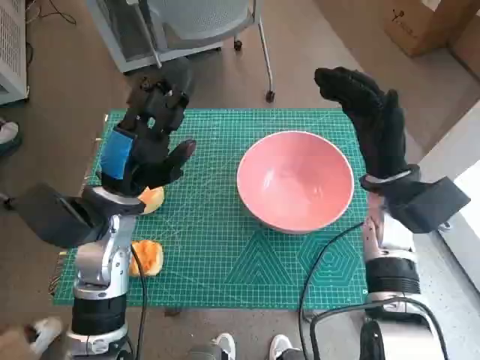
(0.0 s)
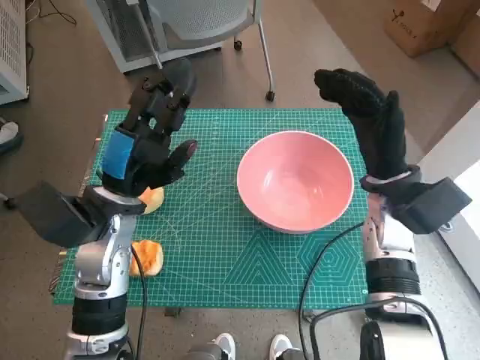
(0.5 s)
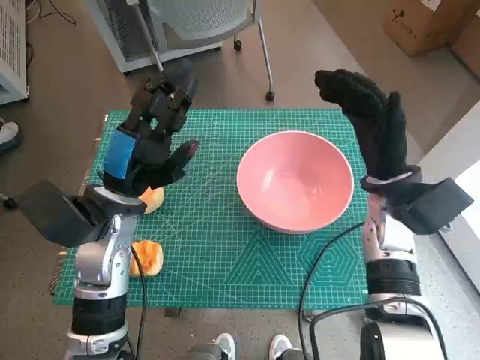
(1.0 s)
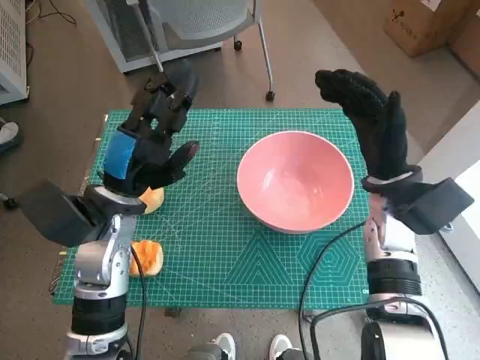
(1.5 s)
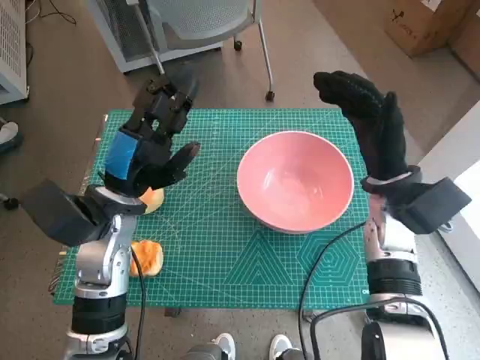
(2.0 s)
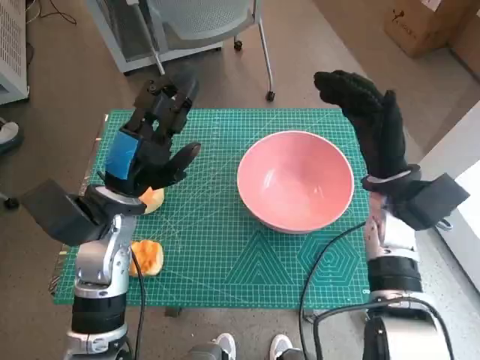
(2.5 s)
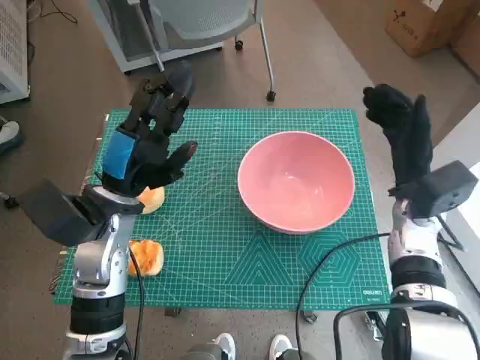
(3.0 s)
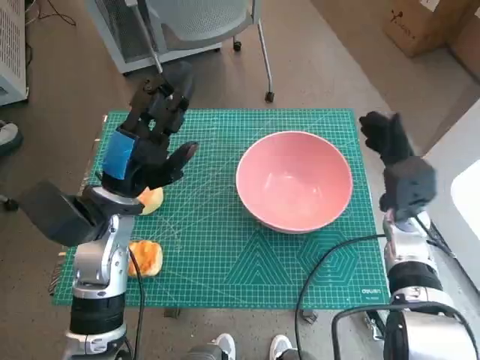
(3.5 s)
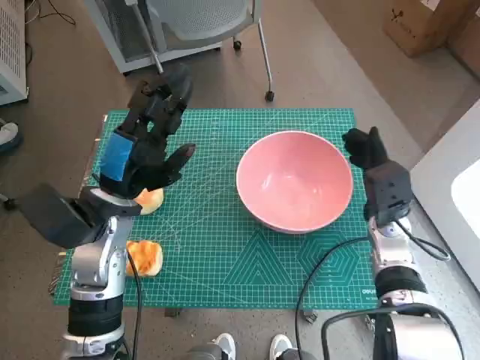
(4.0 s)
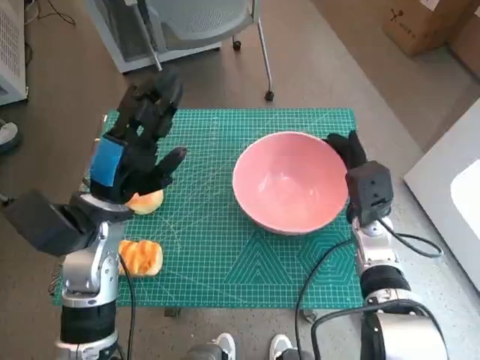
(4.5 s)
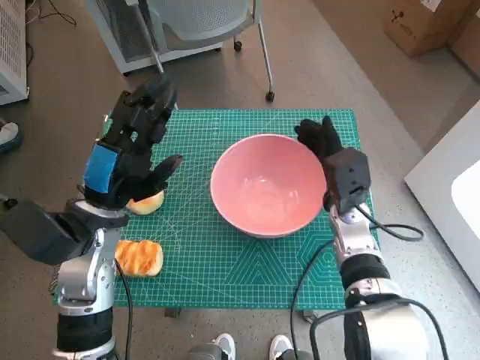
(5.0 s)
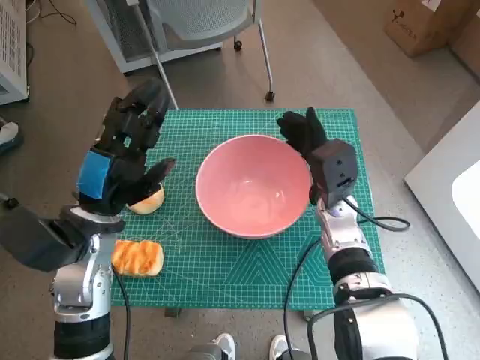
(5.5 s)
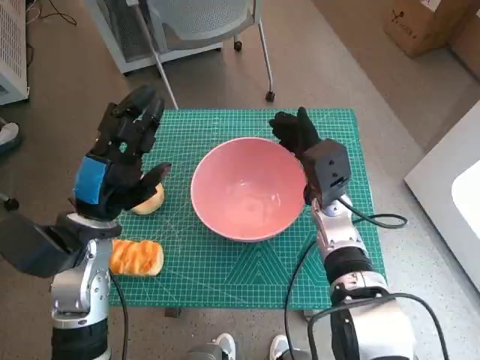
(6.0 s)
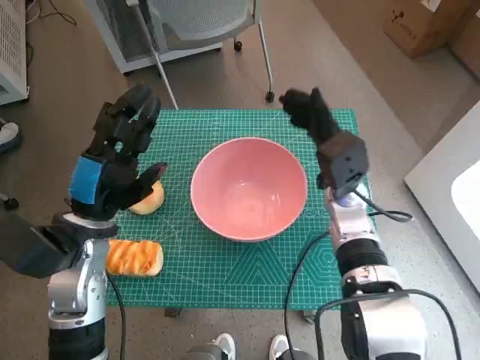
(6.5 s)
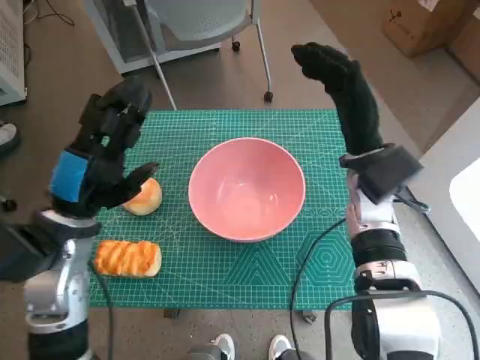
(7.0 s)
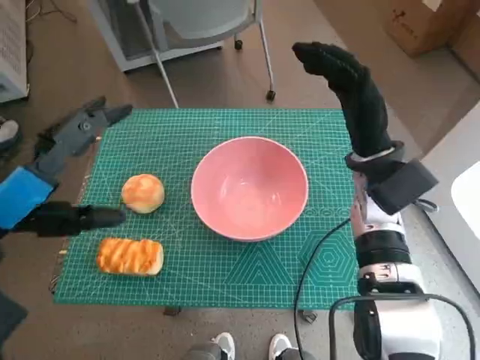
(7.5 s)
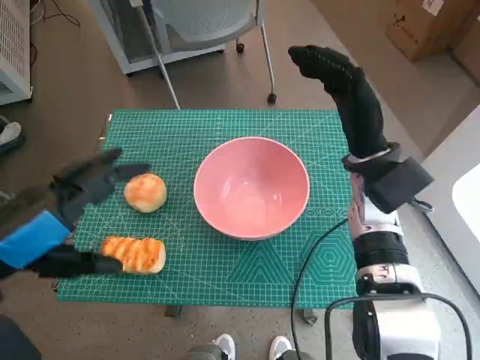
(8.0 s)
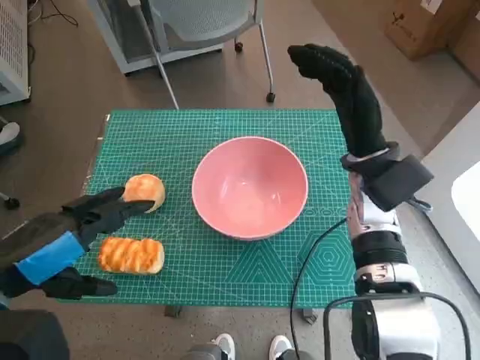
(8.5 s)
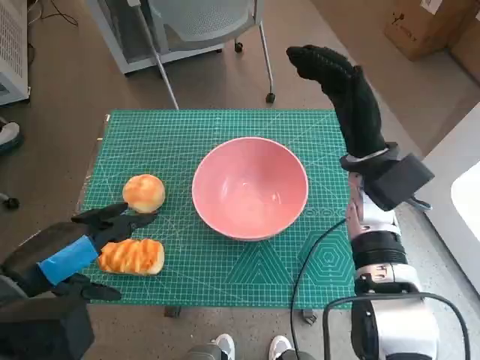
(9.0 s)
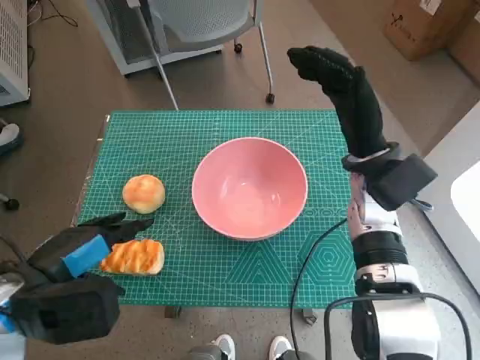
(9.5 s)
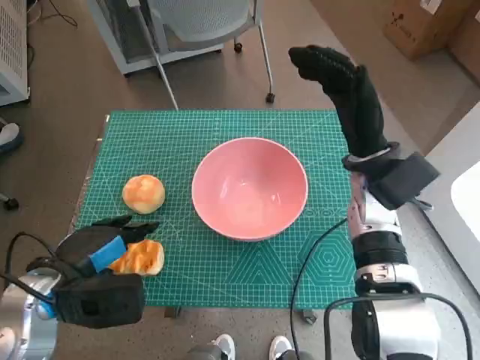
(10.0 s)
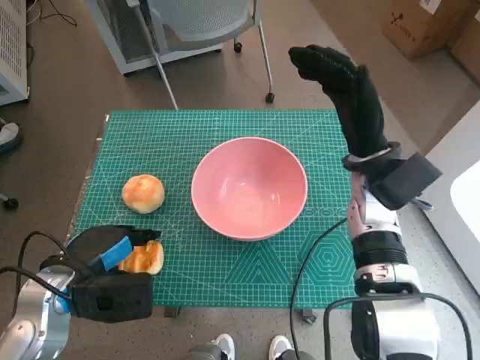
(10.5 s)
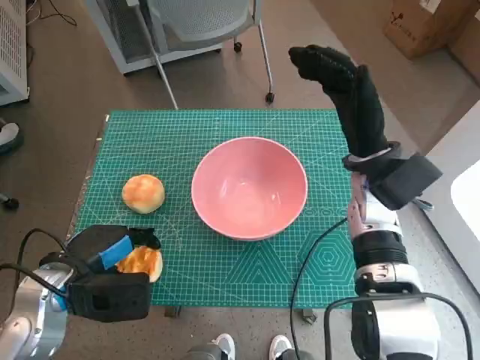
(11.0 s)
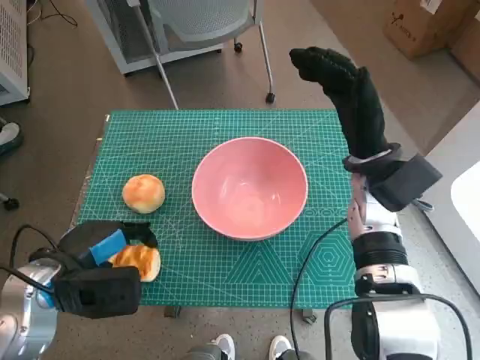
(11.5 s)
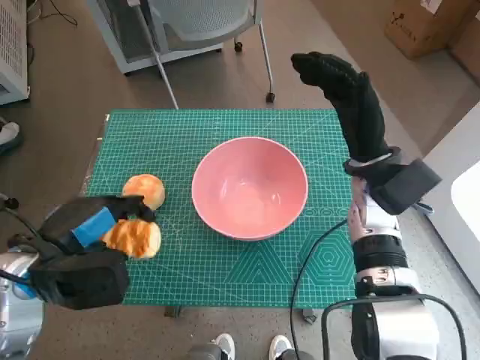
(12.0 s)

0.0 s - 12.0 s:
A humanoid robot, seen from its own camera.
Step, 0.0 s - 6.0 s: Move the pink bowl to the center of table with right hand.
Step, 6.5 s - 11.0 s: Grasp the long bread with left hand.
2.0 s - 4.0 s: The right hand heads downward, covering approximately 10 cm.
4.0 s - 6.0 s: The right hand travels to the left by approximately 10 cm.
6.0 s - 8.0 s: The right hand goes roughly 10 cm upward. Meanwhile the left hand is displaced upward and backward by approximately 15 cm.
8.0 s - 10.0 s: The left hand goes roughly 10 cm downward.
10.0 s - 12.0 s: The hands stay close to where they were, moving slightly.

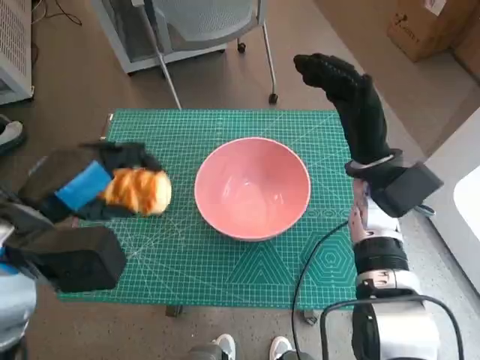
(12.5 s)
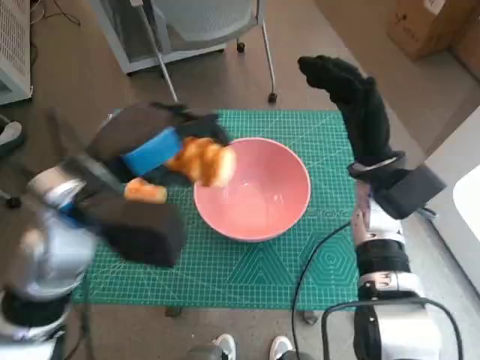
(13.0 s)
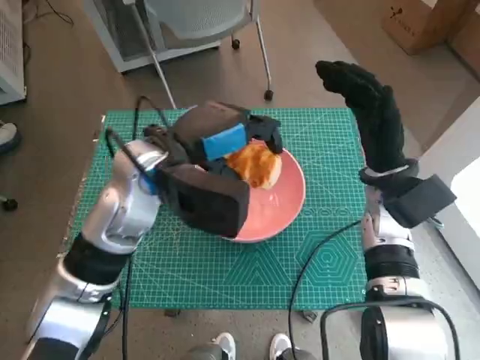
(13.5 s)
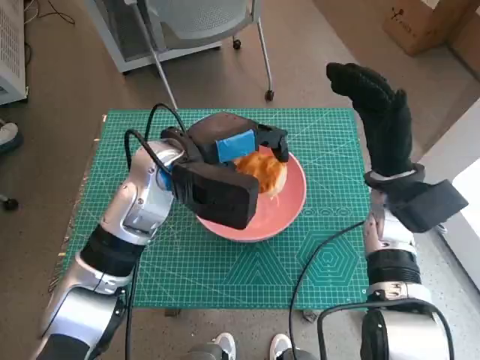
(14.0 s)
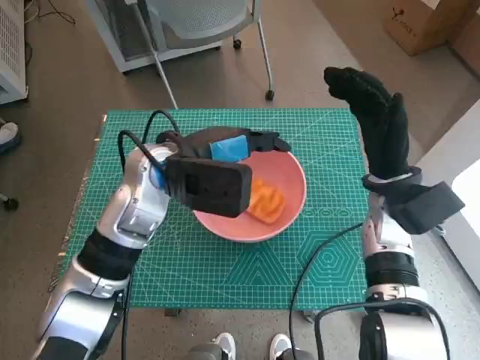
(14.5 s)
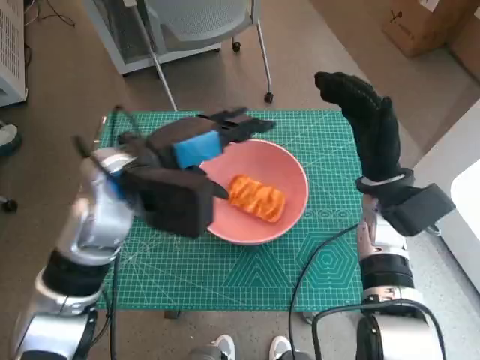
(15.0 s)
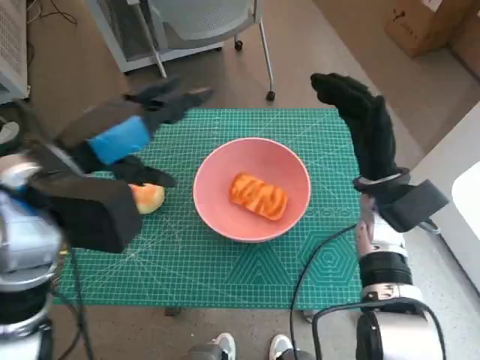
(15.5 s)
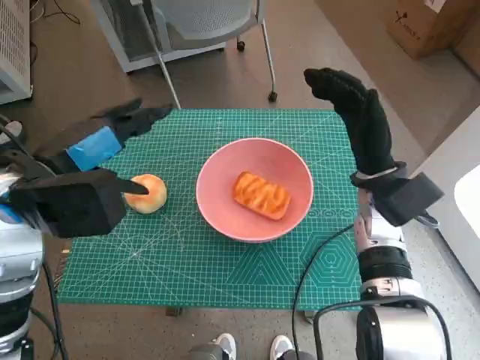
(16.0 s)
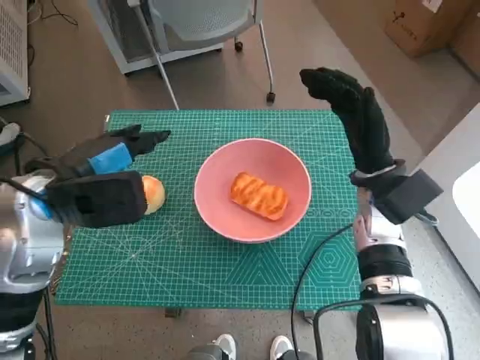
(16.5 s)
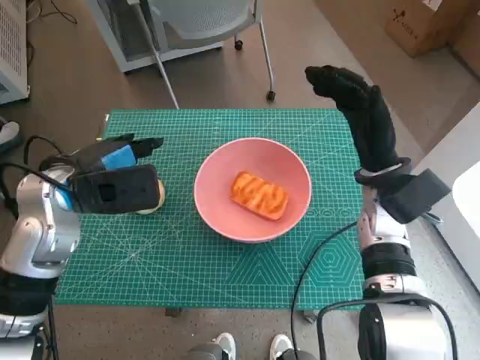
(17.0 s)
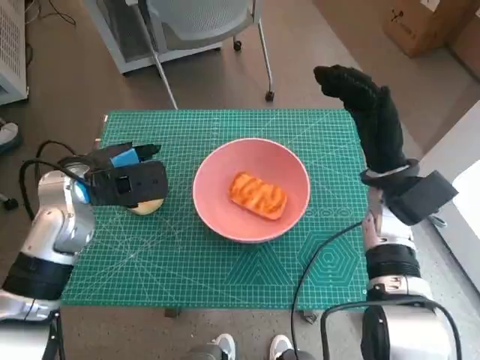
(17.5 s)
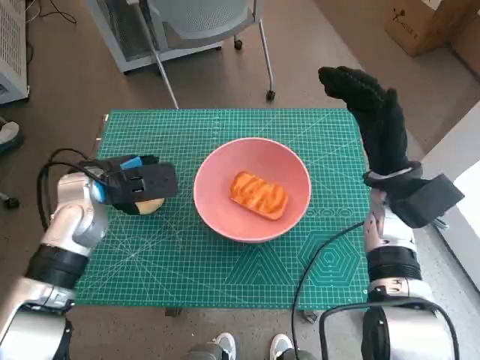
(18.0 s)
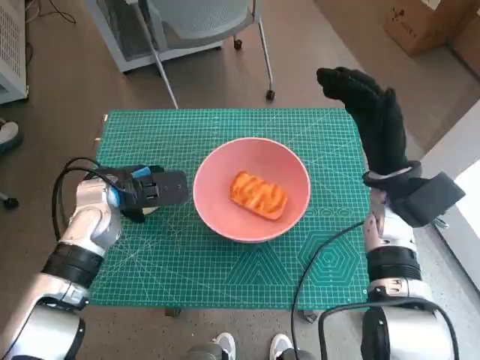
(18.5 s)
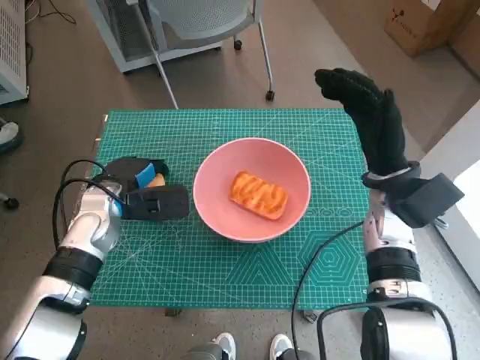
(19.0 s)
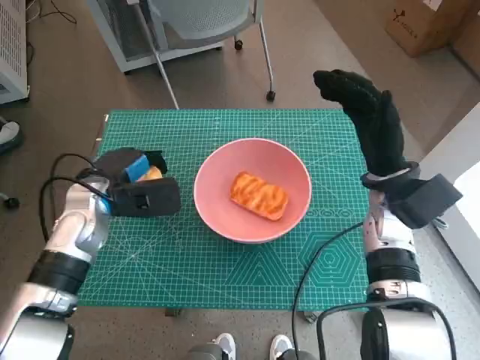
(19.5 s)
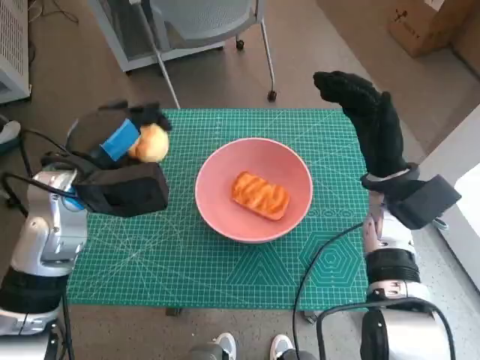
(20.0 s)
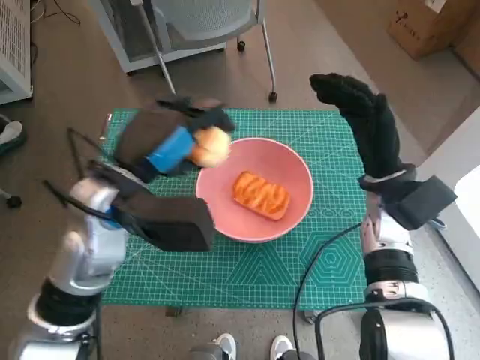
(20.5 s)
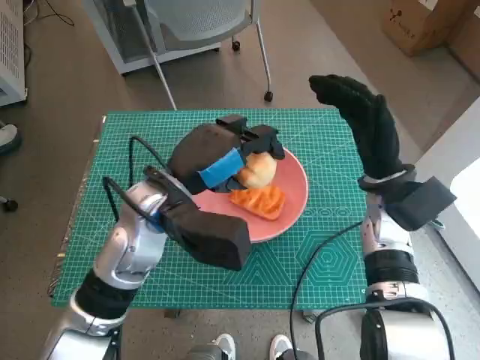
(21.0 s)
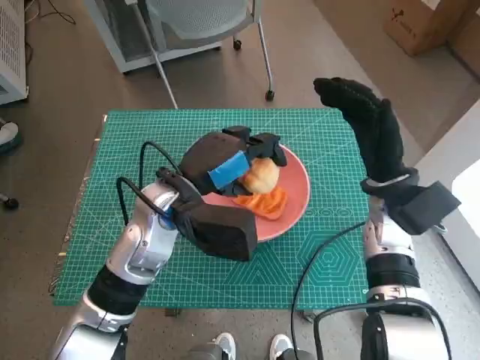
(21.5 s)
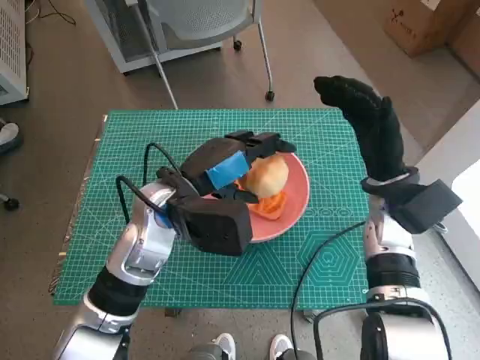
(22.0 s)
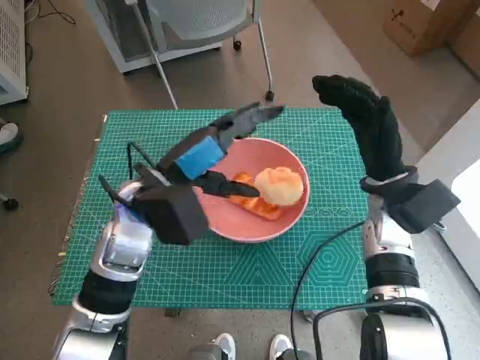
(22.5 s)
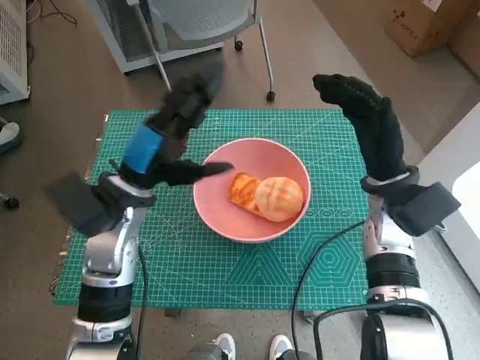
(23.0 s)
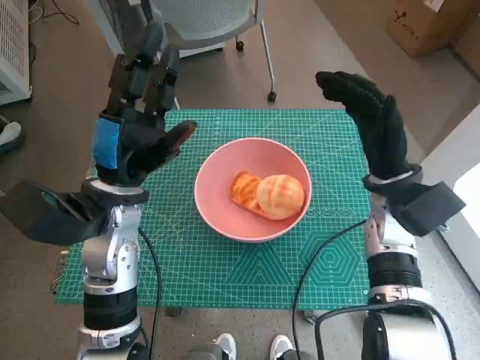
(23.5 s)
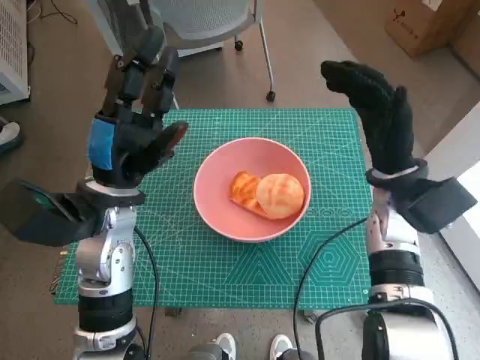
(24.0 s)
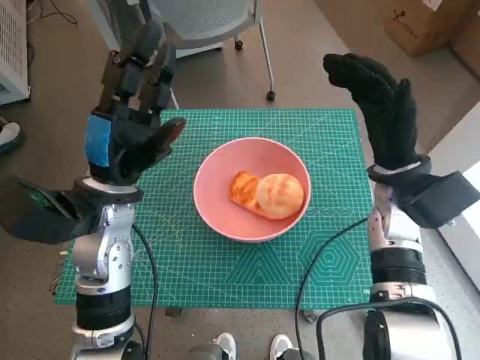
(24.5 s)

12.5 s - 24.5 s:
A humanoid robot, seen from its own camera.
Step, 12.5 s - 14.5 s: Place the long bread in pink bowl with left hand.
Step, 15.0 s - 18.5 s: Grasp the round bread with left hand.
Step, 19.0 s - 22.0 s: Place the round bread in pink bowl with left hand.
12.5 s - 14.5 s: The left hand goes some 15 cm to the right and forward.
14.5 s - 16.5 s: The left hand goes some 15 cm to the left and backward.
16.5 s - 18.5 s: The left hand is displaced downward and forward by some 10 cm.
18.5 s - 20.5 s: The left hand moves upward, backward and to the right, roughly 10 cm.
20.5 s - 22.5 s: The left hand changes place by about 5 cm.

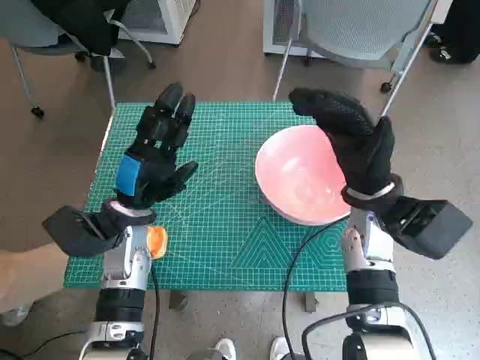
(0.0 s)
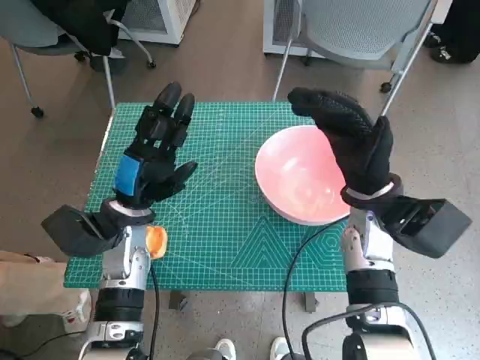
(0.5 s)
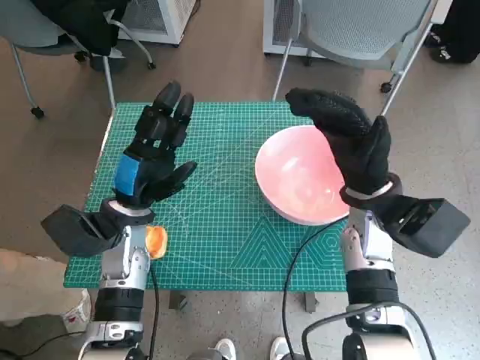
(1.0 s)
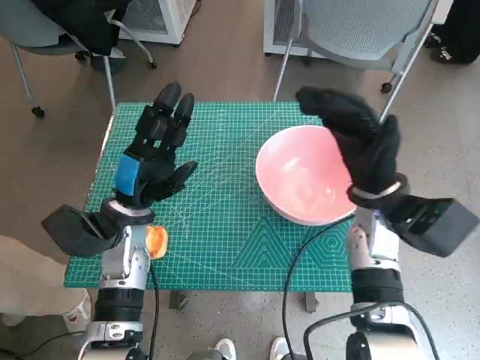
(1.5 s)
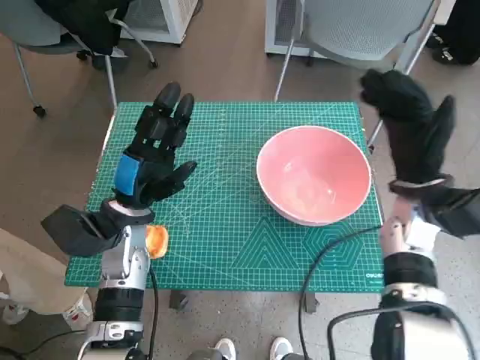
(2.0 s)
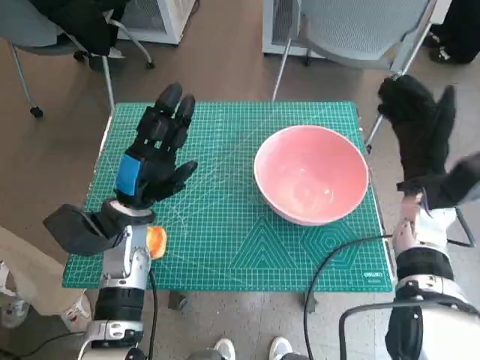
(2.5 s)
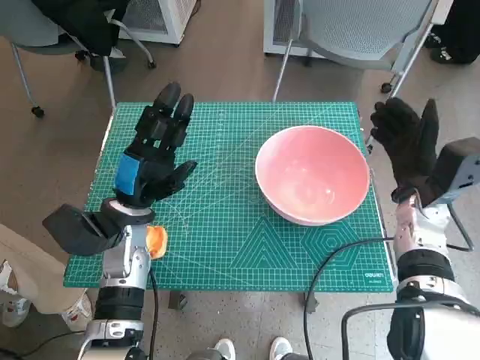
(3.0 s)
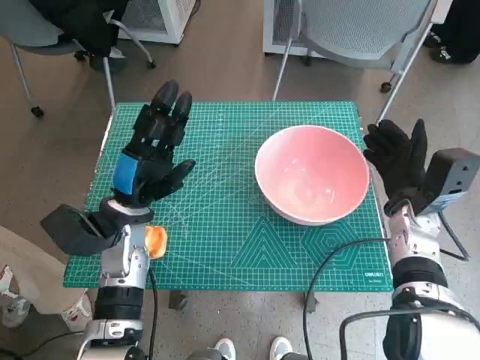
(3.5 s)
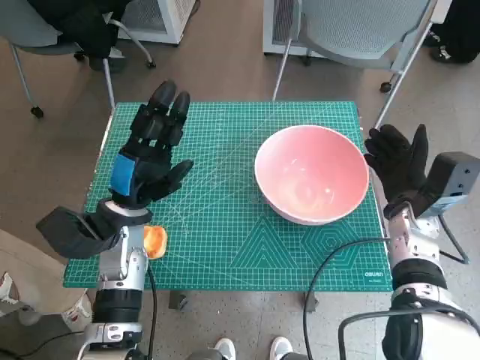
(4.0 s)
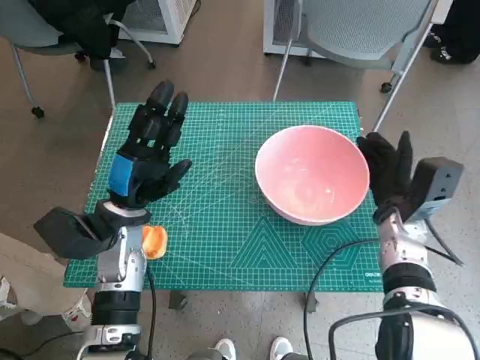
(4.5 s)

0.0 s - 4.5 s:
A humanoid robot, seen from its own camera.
2.0 s - 4.5 s: The right hand shifts approximately 5 cm downward.
